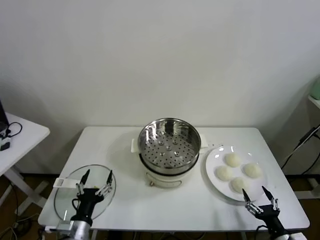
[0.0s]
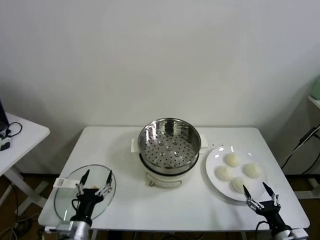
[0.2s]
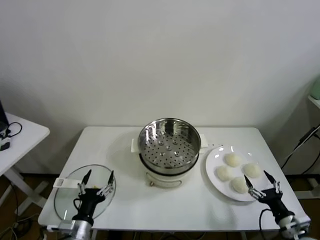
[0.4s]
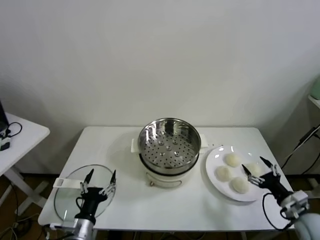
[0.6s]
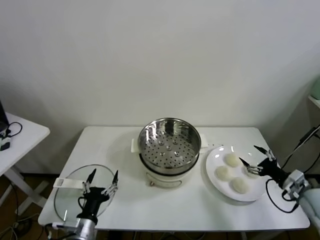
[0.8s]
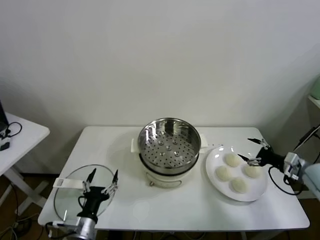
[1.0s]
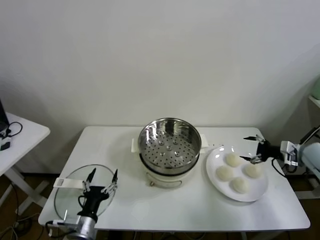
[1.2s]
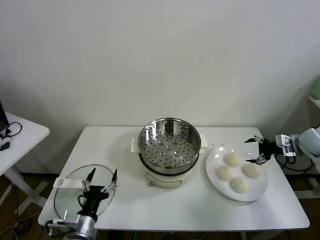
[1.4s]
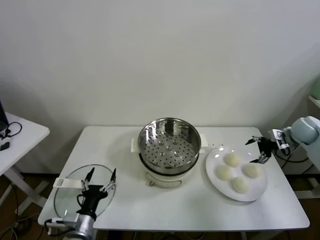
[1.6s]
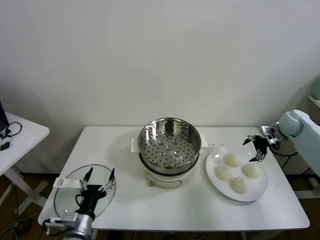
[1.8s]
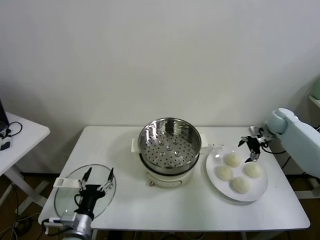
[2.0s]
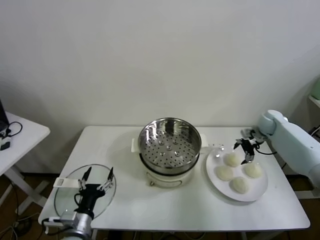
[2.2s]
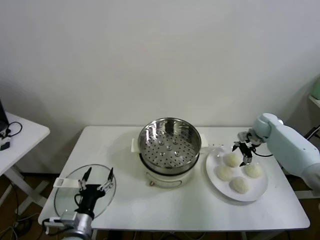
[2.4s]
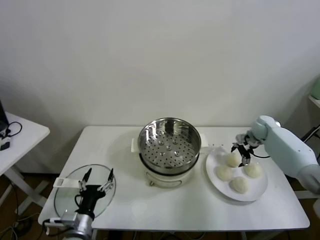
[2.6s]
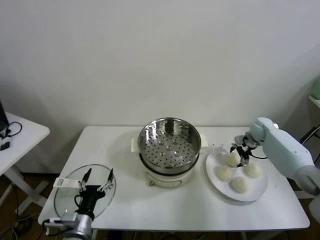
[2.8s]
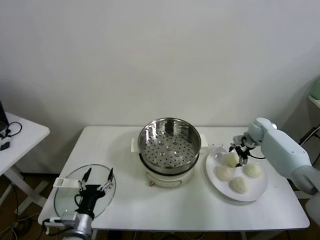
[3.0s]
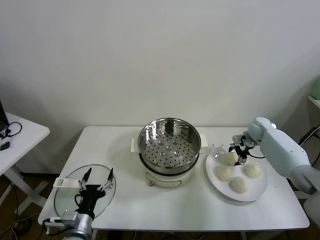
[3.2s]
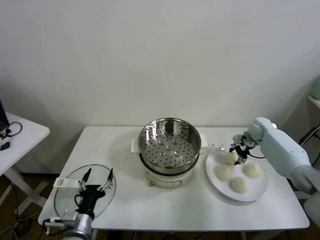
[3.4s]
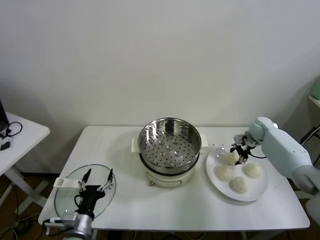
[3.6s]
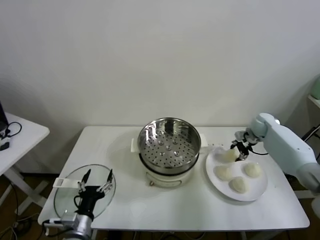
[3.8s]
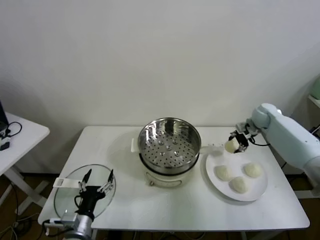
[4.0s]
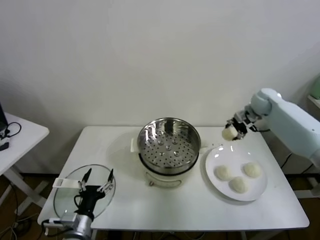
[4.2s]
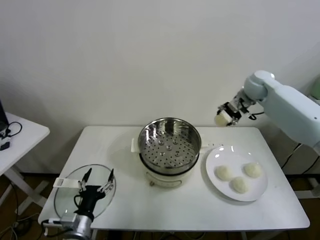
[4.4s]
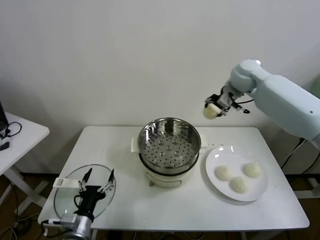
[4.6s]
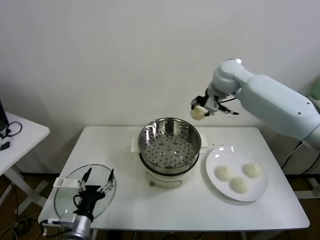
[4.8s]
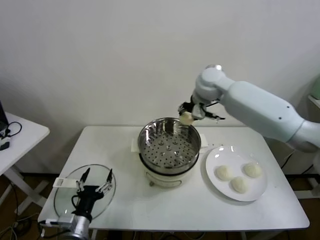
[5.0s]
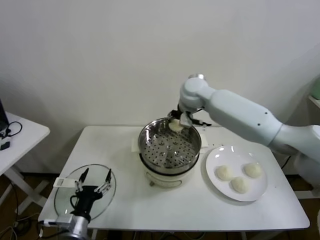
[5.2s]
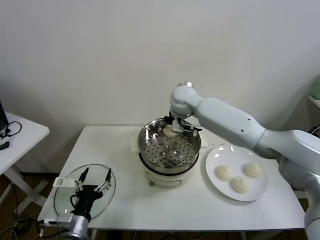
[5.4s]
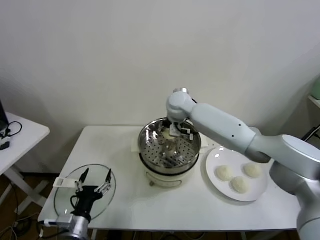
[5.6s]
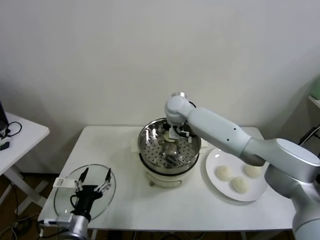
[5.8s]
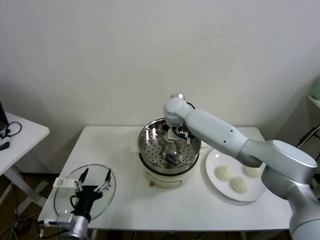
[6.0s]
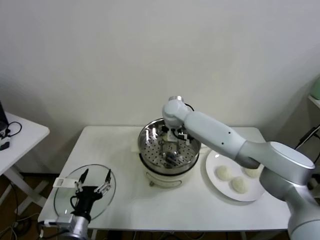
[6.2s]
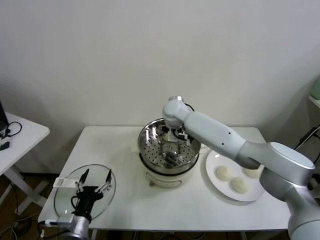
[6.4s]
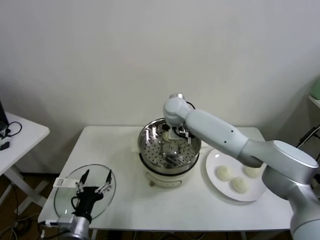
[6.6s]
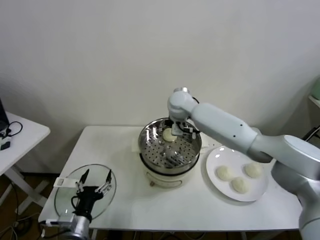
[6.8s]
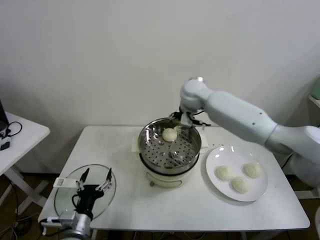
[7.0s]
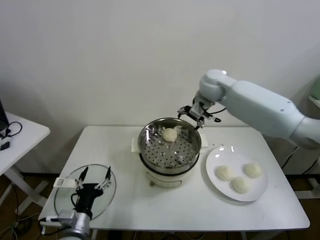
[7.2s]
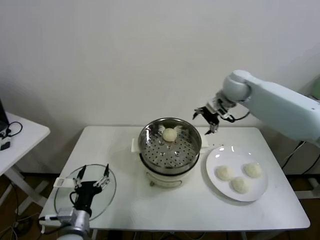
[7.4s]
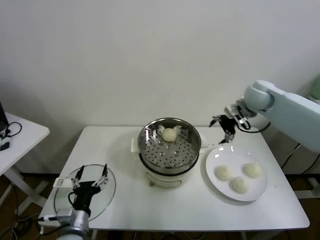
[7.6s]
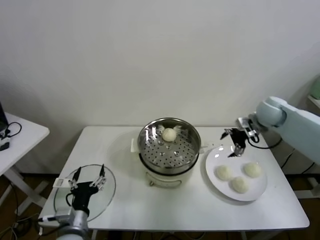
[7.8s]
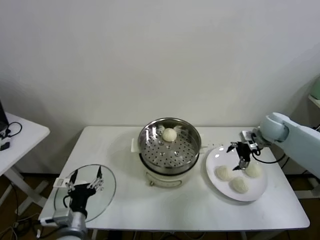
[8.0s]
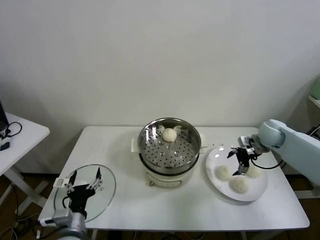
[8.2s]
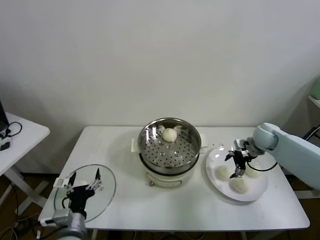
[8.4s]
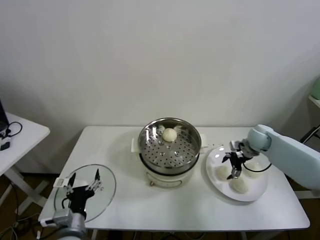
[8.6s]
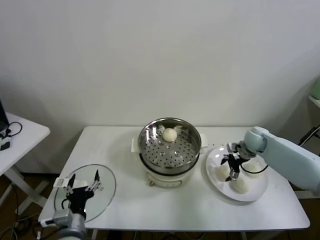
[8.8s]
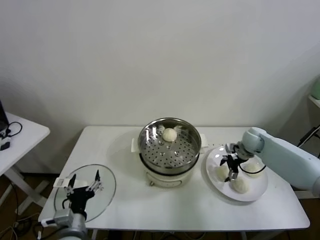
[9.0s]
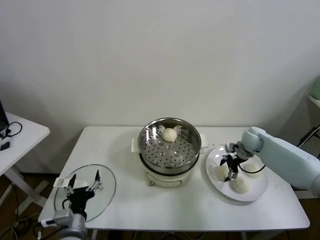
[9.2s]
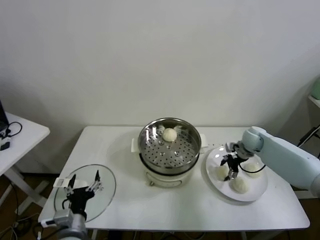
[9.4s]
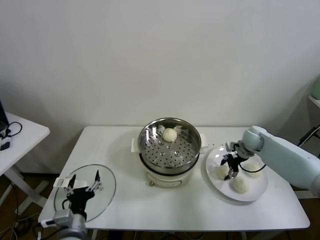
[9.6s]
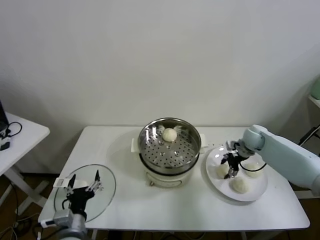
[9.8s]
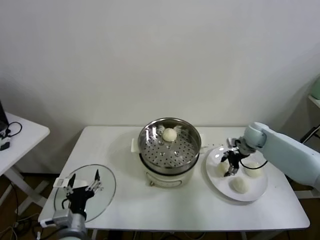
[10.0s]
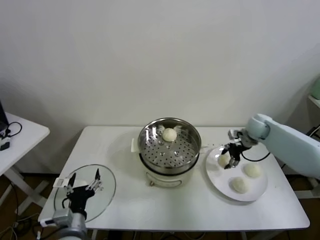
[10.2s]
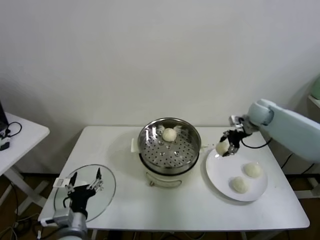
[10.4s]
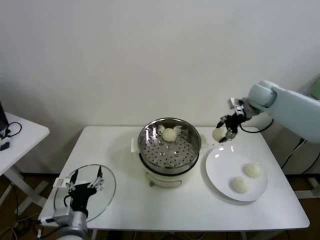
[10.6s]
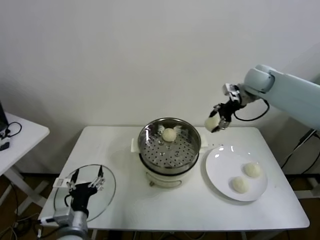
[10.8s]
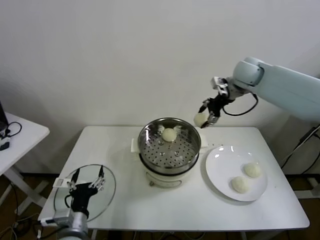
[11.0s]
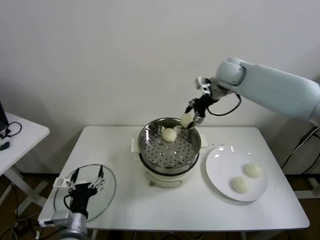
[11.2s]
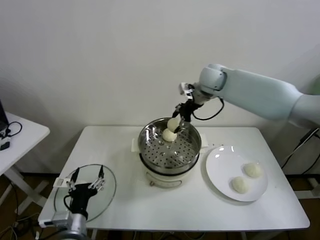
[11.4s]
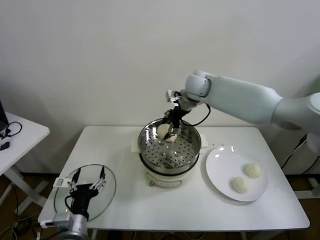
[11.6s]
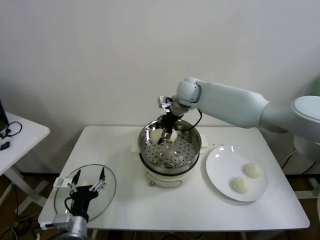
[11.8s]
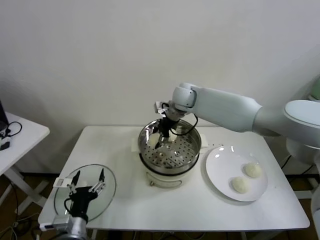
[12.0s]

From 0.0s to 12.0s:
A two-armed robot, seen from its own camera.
Task of the whole recording: take steamed baozi put them in steamer.
Step, from 0.0s to 3.0s: Grasp the baozi in the plate with right gripper.
Step, from 3.4s to 6.4s: Place the baozi on the steamer with right gripper.
Step, from 6.6s to 9.4s: Grasp the baozi in the plate with right gripper.
From 1.6s to 3.0s: The right gripper shifts about 10 cm downward, to the left and forward, and closes up.
From 3.0s to 4.4s: The right gripper heads upward and to the left, covering approximately 30 cm, and closes up.
From 4.4s to 6.0s: The right gripper heads to the left and downward, covering about 25 cm.
From 6.0s to 7.6s: The right gripper travels to the right by approximately 30 cm, and opens its fingers.
From 7.6s to 9.0s: The right gripper travels downward by roughly 15 cm.
From 9.0s to 10.4s: The right gripper heads upward, covering roughly 15 cm, and closes up.
From 10.4s to 12.0s: The right gripper travels to the left by about 30 cm.

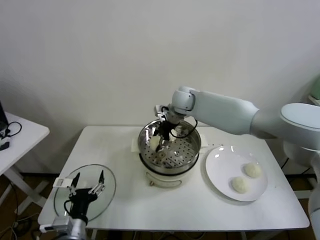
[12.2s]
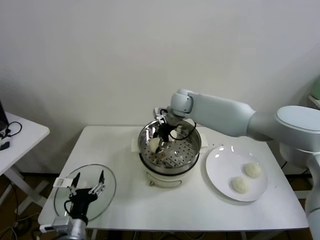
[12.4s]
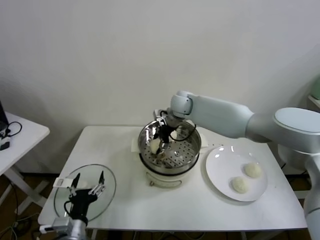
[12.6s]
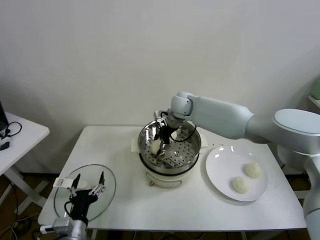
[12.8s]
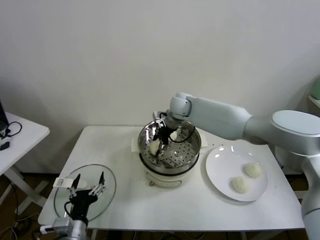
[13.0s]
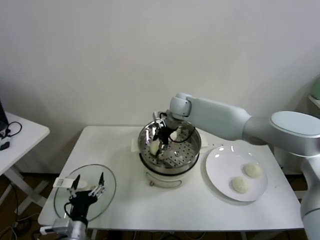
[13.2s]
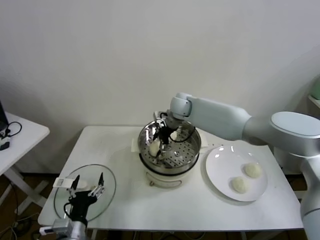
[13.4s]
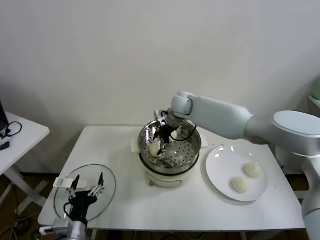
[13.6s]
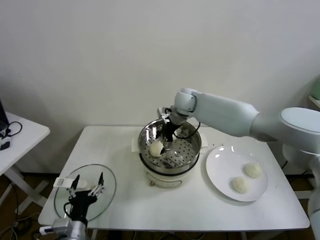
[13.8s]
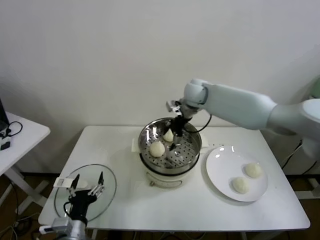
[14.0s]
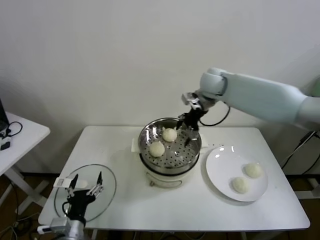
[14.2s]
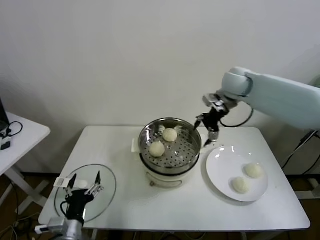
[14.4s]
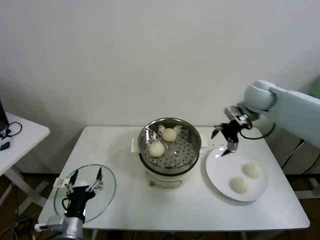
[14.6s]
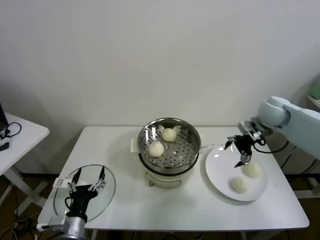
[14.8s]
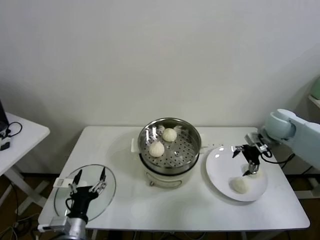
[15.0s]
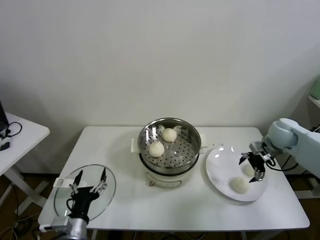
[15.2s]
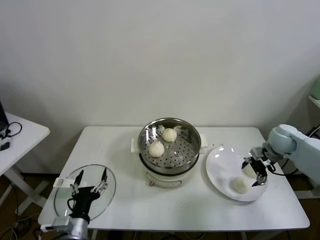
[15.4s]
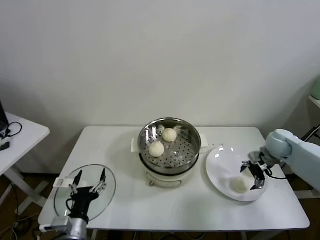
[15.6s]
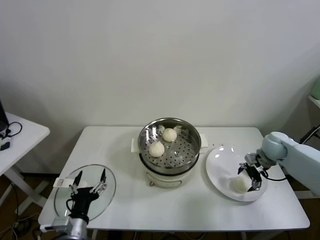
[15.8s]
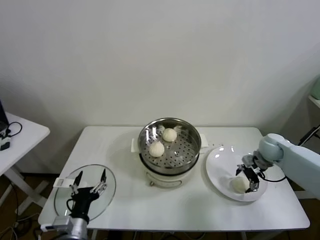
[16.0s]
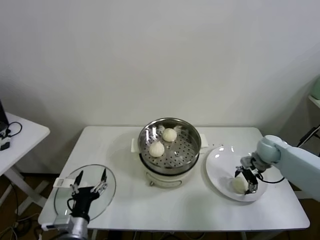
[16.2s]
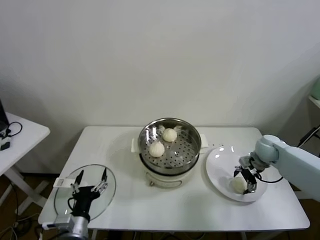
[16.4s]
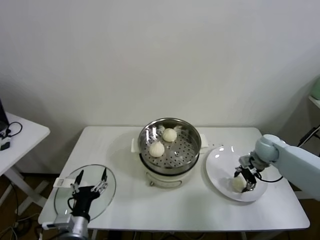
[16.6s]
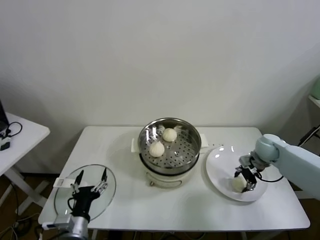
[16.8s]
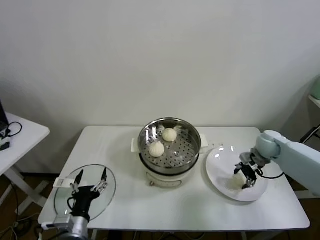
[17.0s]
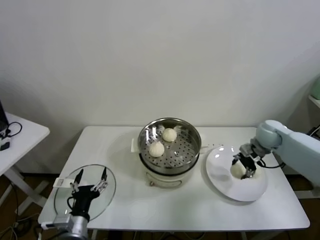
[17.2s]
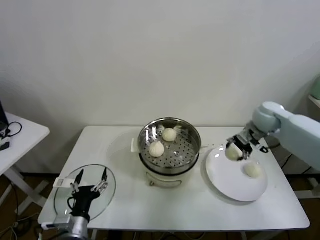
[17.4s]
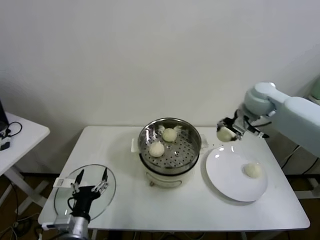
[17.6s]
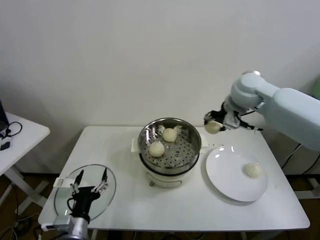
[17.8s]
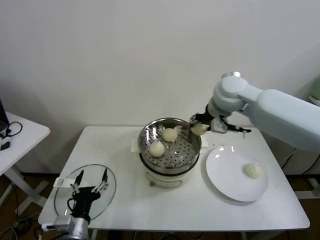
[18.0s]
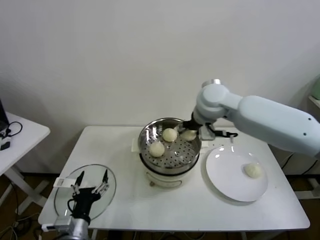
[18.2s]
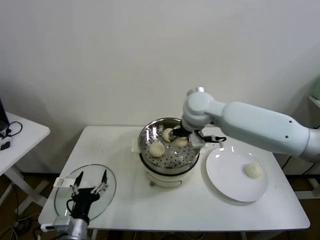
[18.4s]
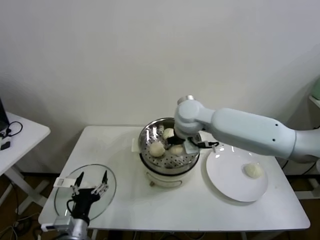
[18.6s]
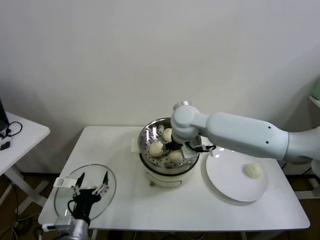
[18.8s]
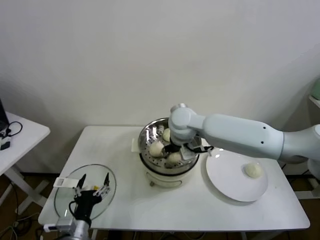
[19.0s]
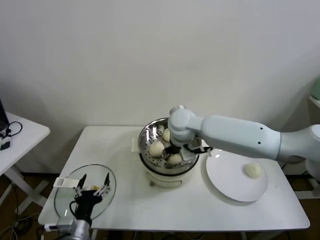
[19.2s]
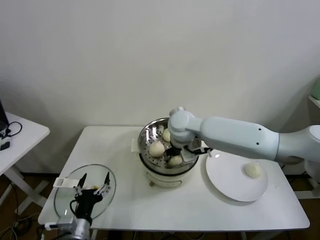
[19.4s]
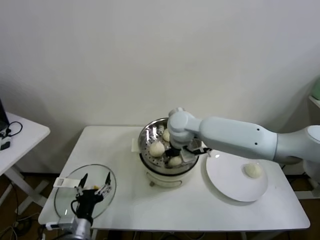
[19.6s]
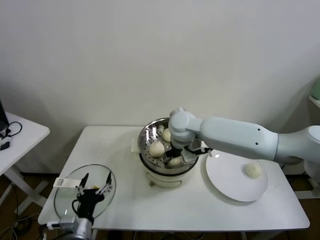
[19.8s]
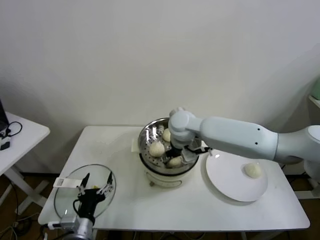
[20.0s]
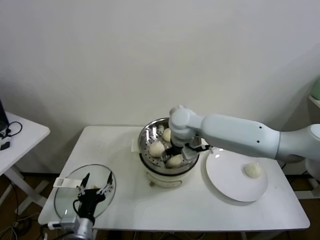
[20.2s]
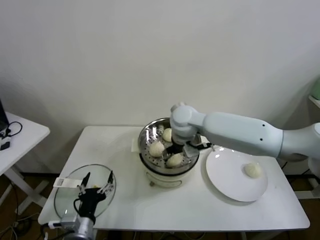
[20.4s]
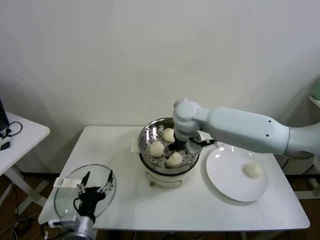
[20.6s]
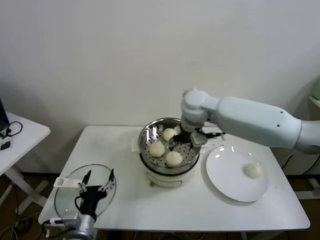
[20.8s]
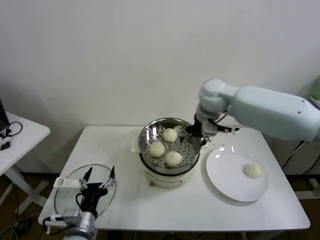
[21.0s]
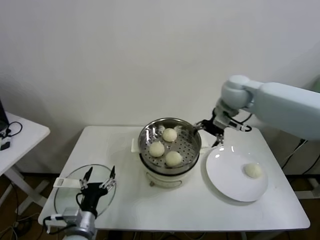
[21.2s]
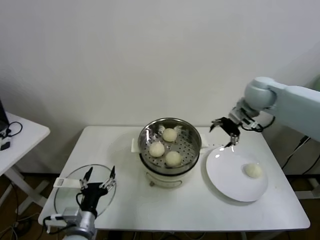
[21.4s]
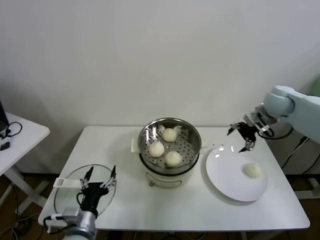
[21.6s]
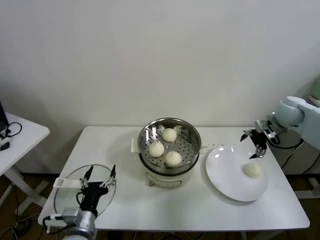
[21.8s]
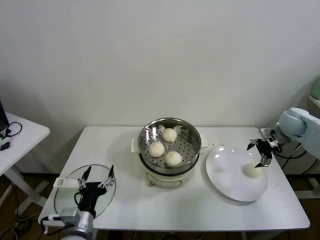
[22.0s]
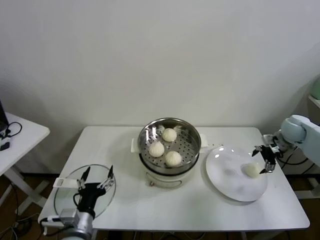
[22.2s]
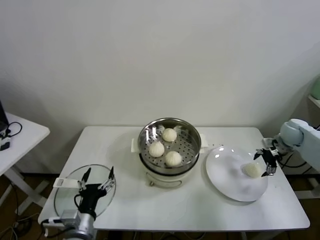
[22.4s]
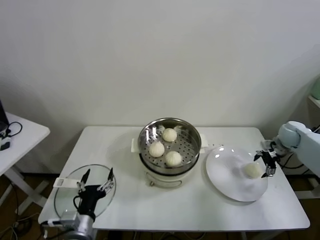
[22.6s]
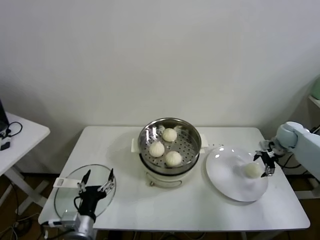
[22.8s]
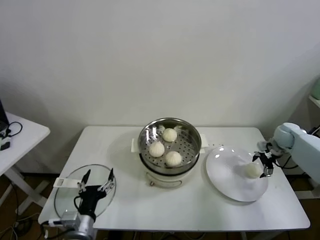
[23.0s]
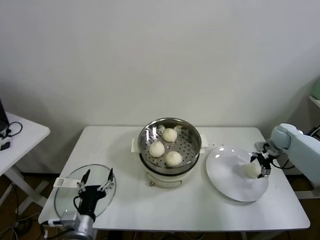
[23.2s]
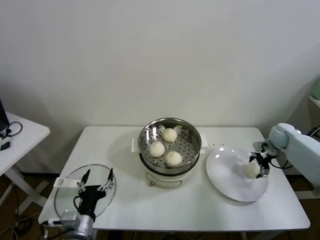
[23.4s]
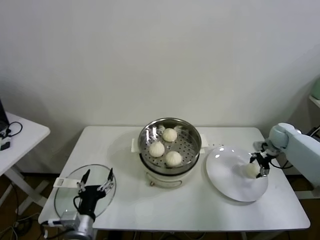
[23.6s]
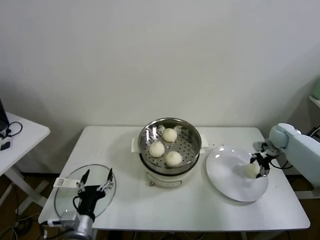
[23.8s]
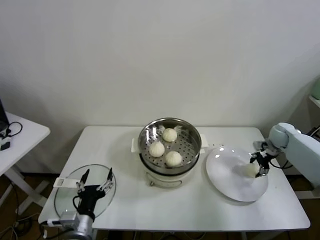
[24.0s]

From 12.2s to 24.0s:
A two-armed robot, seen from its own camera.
Task of the whole recording: take steamed baozi put them in steamer.
Step, from 13.6s to 16.4s: Grasp the baozi in the plate with right gripper.
Step, from 16.6s to 19.8s: Place the baozi on the steamer with right gripper.
Step, from 20.0s to 23.8s: Grasp the baozi in the plate with right gripper.
From 12.2s to 13.6s: The right gripper opens up.
From 13.6s to 15.2s: The right gripper is displaced to the right by approximately 35 cm.
From 15.2s to 16.6s: The right gripper heads downward, covering approximately 10 cm, and closes up.
From 16.6s to 18.2s: The right gripper travels to the left and upward by some 35 cm.
From 18.2s to 19.6s: The right gripper heads downward and to the left, covering roughly 10 cm.
From 19.6s to 21.0s: The right gripper shifts roughly 15 cm to the right and upward, and opens its fingers.
From 21.0s to 22.6s: The right gripper shifts about 40 cm to the right and downward.
From 22.6s to 24.0s: The right gripper closes up.
